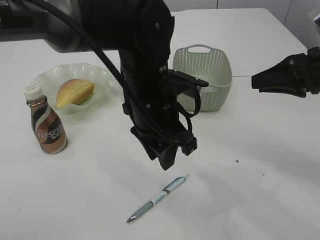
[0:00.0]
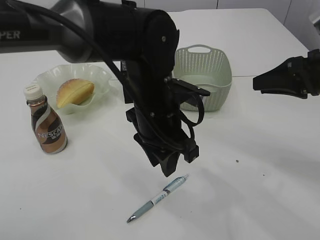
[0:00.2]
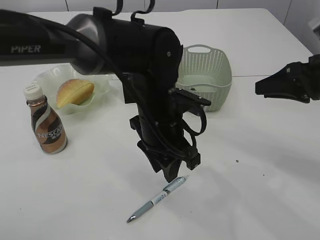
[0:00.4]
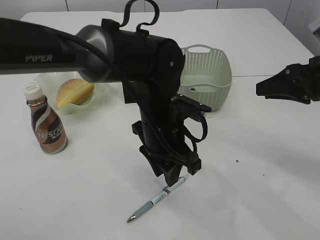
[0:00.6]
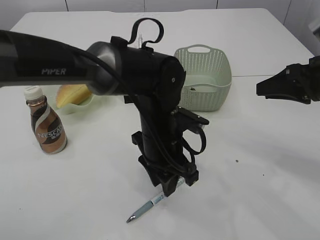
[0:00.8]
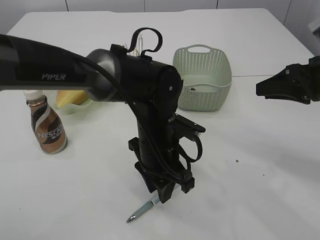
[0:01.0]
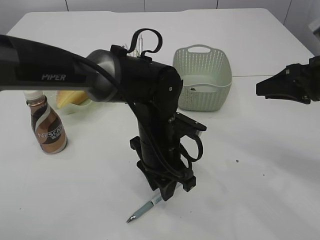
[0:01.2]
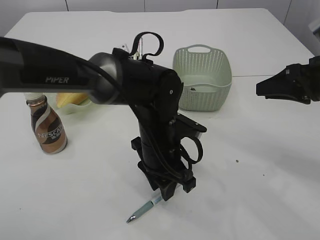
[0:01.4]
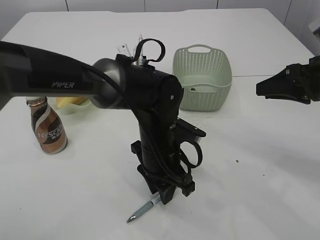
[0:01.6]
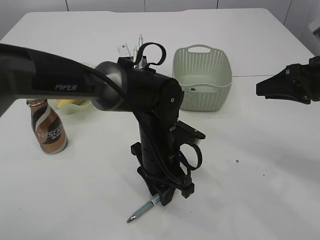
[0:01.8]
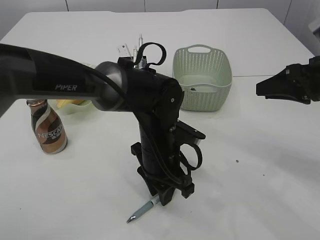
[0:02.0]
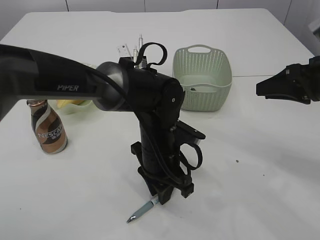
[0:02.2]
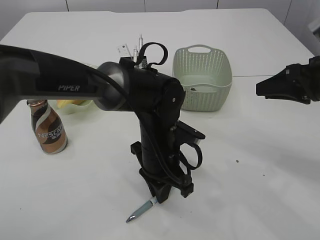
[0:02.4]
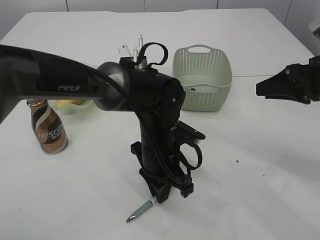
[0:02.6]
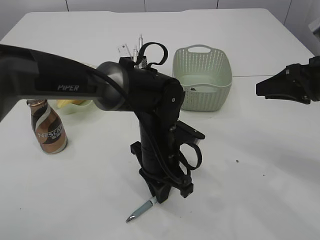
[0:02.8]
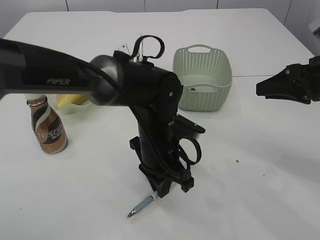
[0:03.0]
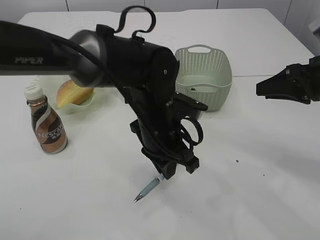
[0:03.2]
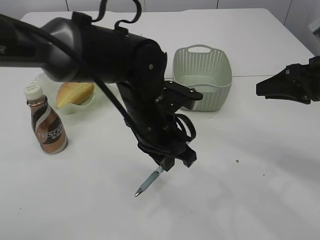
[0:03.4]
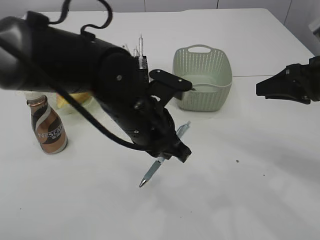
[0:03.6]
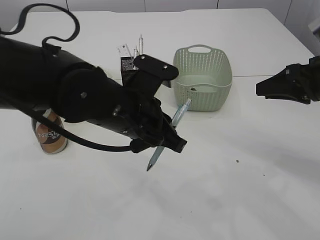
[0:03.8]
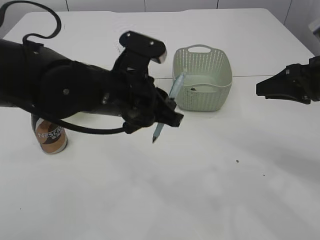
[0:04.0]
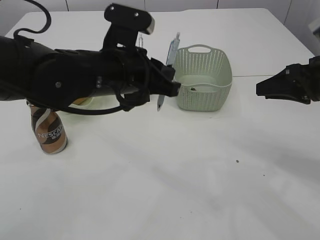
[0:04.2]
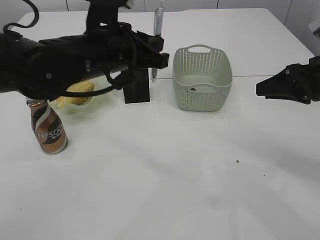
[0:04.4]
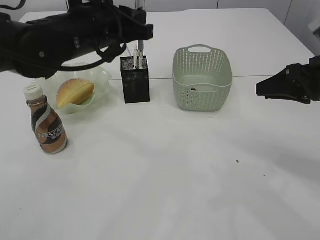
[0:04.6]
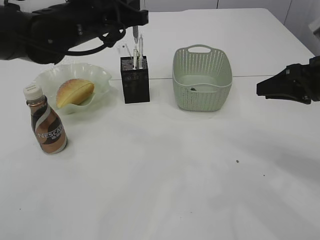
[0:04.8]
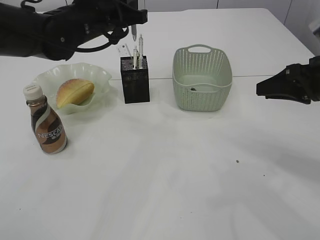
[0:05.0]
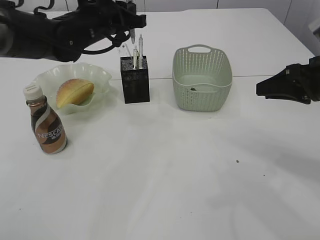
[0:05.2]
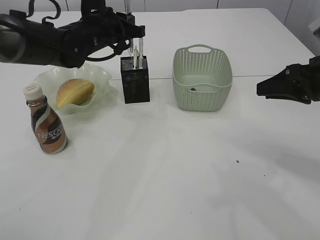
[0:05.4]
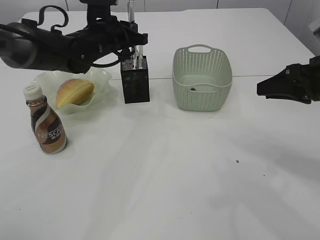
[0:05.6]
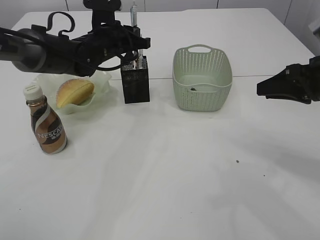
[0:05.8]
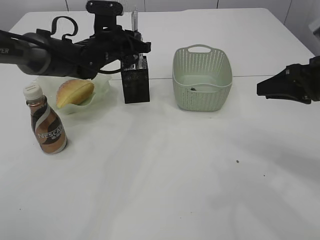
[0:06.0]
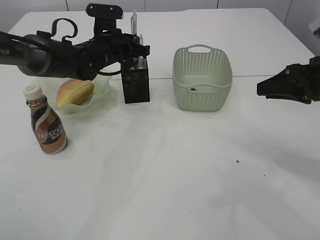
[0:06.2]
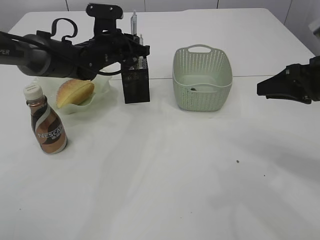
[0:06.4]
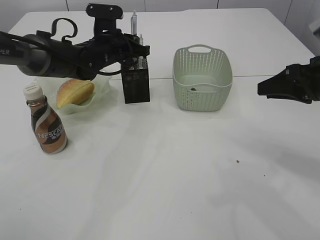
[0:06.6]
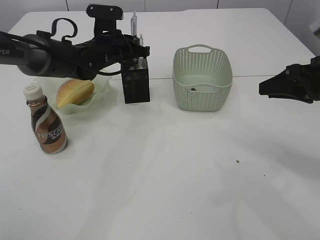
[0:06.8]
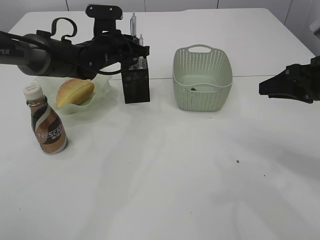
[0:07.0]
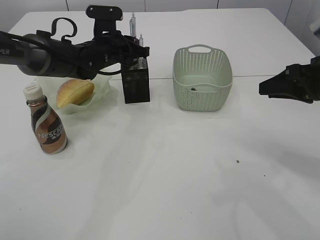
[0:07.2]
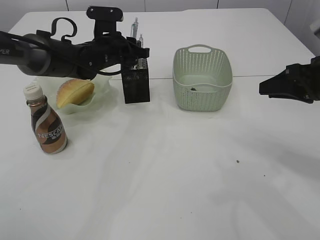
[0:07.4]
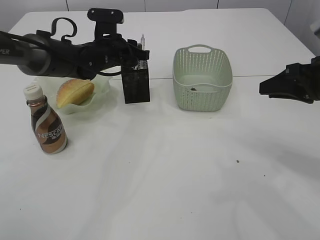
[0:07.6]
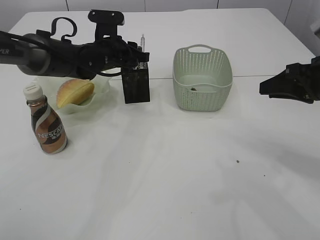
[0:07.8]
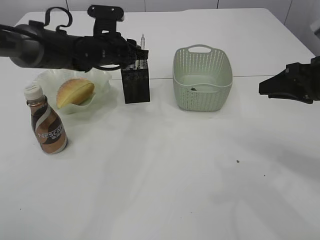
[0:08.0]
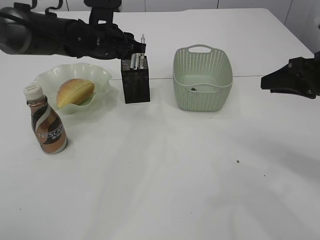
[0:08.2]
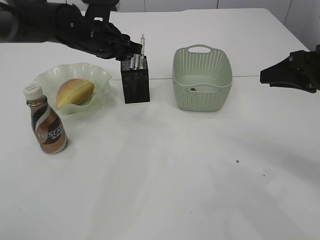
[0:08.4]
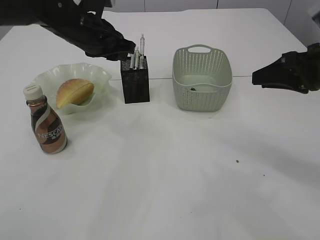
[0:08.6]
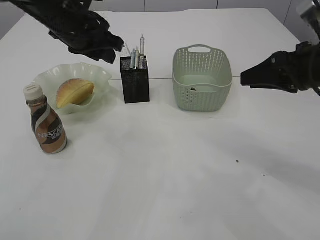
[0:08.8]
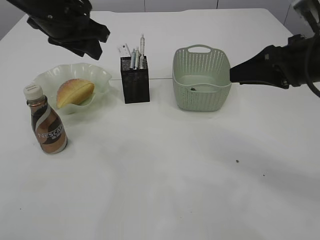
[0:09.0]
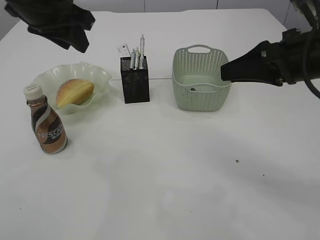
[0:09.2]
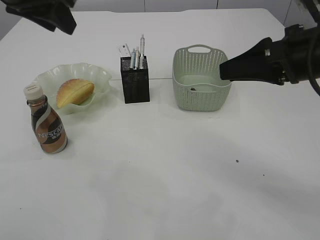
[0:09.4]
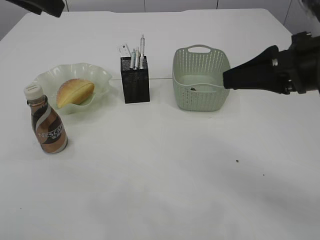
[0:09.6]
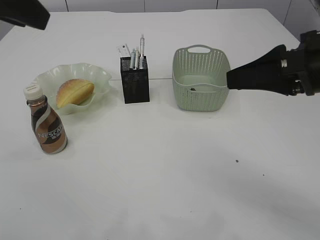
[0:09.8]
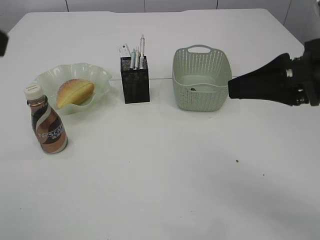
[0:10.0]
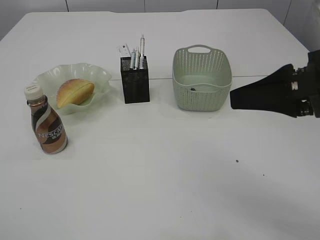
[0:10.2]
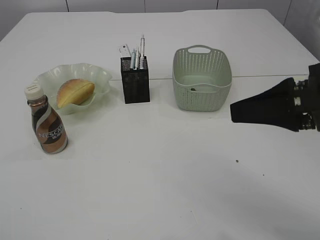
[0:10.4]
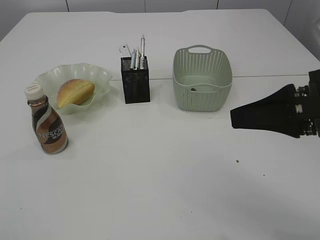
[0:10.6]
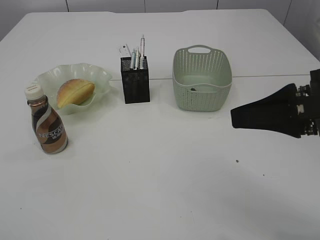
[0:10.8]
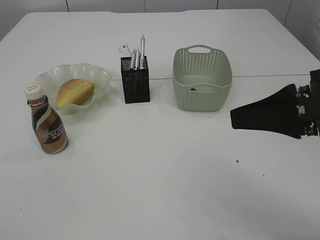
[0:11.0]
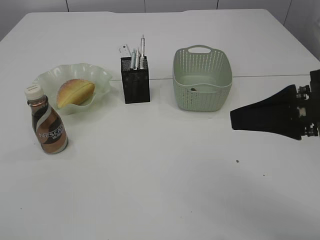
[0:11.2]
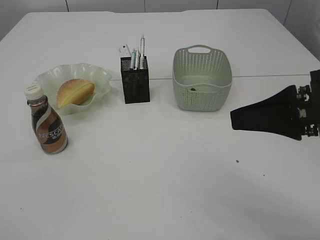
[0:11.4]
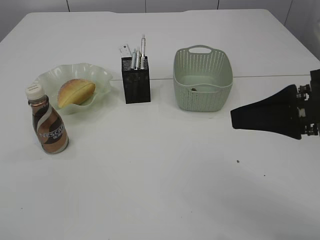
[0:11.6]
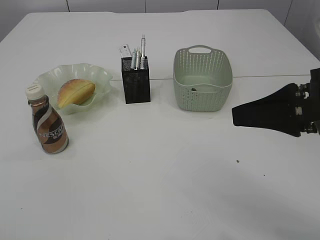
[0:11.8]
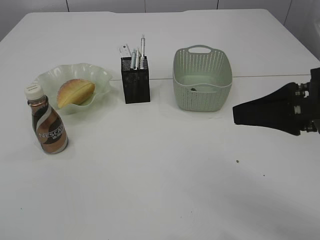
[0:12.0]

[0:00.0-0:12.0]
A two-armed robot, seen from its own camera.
Step, 0:00.0 to 0:03.4: Pick up the pen with left arm.
Step, 0:03.6 to 0:08.6: Place the pen into the pen holder.
0:00.0 to 0:01.6: The left gripper heads downward, covering some 10 cm.
0:01.6 to 0:03.0: The left gripper closes up.
0:03.0 to 0:04.4: The left gripper heads upward and to the left, covering roughly 15 cm.
0:04.4 to 0:06.0: The left gripper moves forward and downward, roughly 15 cm.
0:06.0 to 0:07.6: The left gripper opens its fingers.
0:07.6 to 0:09.0: The left gripper goes about 15 cm upward and backward; the right gripper goes some 5 cm to the left.
0:09.0 to 0:10.4: The right gripper shifts some 10 cm backward. Meanwhile the left gripper goes approximately 30 cm backward.

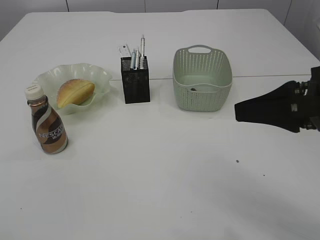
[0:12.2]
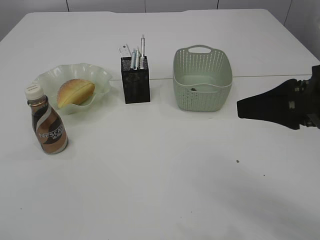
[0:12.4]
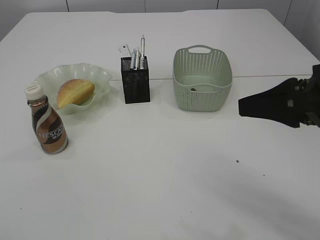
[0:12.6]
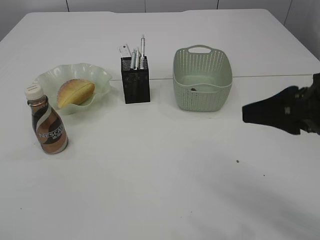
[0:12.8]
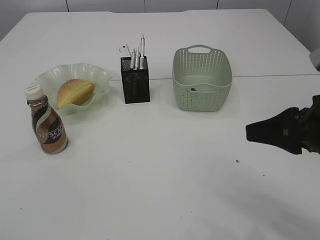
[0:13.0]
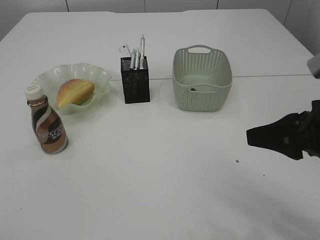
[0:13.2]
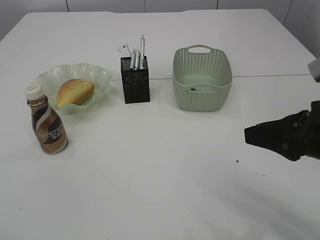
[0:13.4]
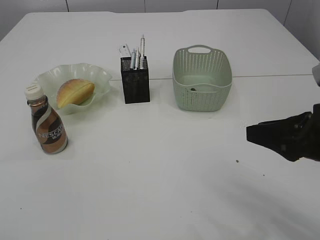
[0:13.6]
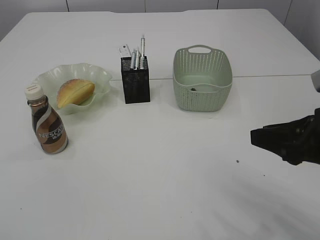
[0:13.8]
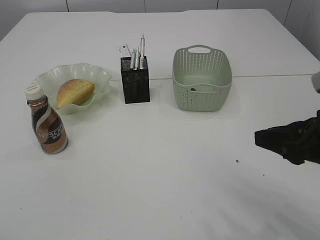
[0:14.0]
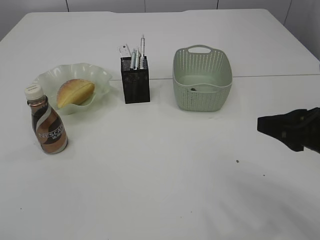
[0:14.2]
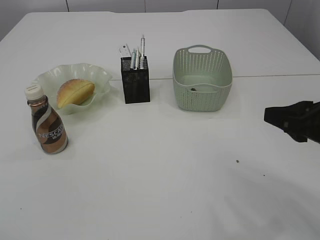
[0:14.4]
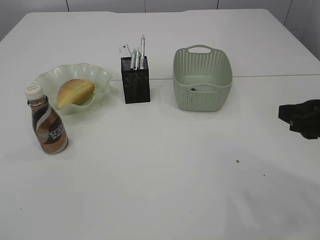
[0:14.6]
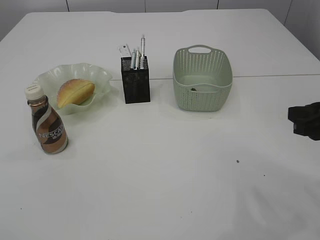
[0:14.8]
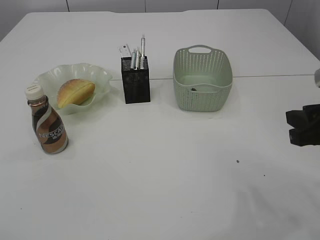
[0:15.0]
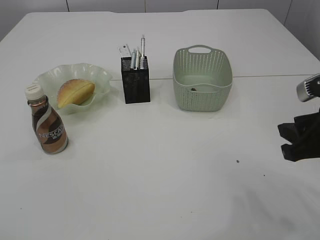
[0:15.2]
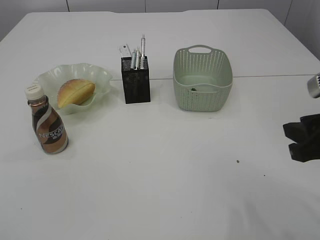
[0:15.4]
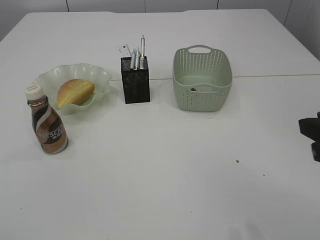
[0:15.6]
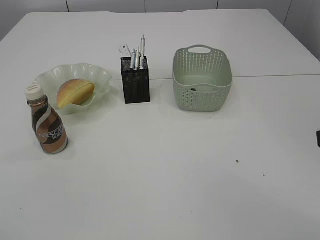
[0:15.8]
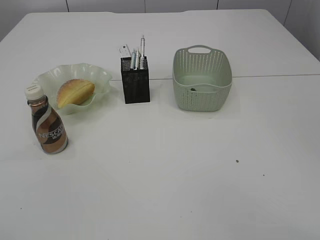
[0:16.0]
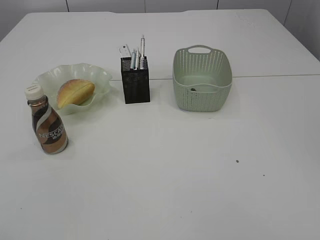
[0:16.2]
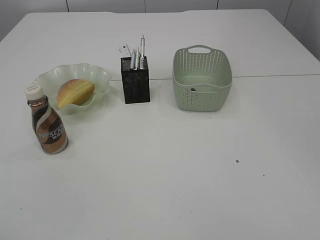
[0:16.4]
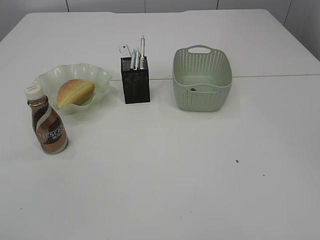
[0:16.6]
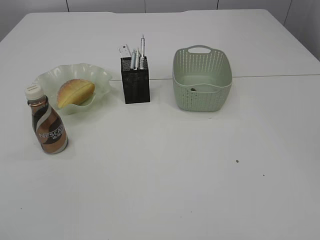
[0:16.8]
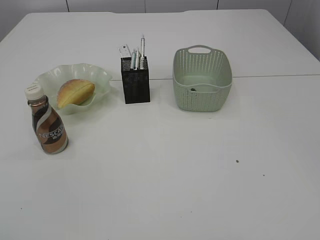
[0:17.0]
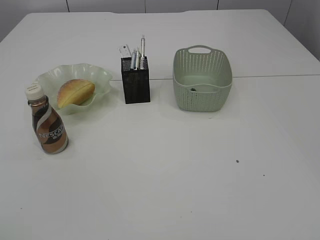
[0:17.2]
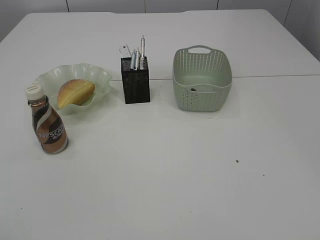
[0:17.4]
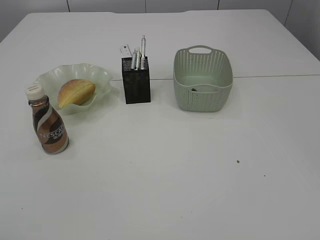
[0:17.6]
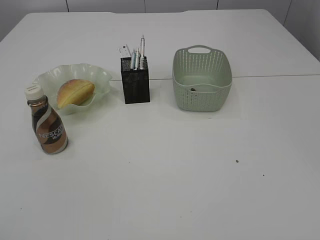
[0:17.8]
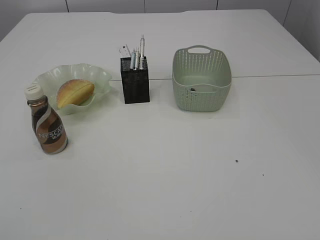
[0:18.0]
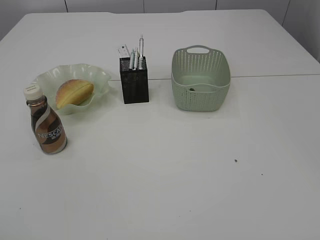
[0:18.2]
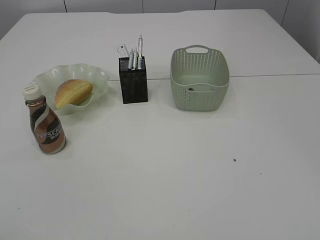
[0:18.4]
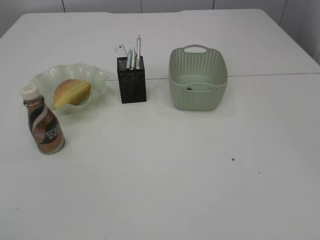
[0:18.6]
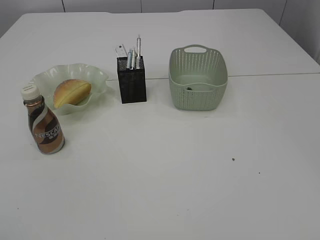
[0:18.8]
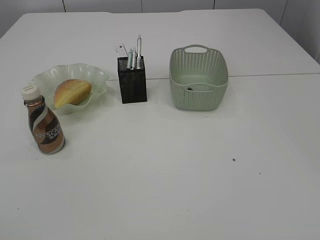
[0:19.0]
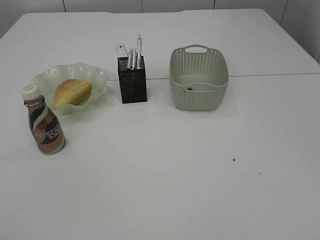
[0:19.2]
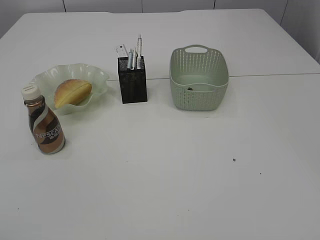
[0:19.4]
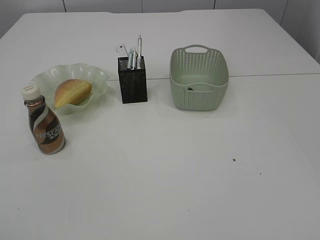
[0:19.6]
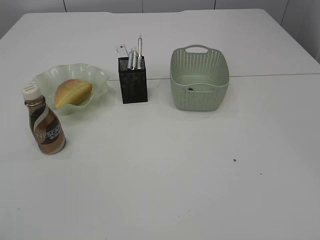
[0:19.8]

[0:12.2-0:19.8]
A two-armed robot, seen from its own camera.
0:12.2 to 0:13.8: The right gripper heads downward, covering approximately 5 cm.
0:15.2 to 0:16.8: The right gripper is displaced backward by roughly 25 cm.
0:18.2 to 0:19.8: Both grippers stay about where they are.
